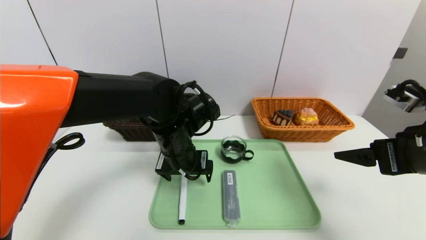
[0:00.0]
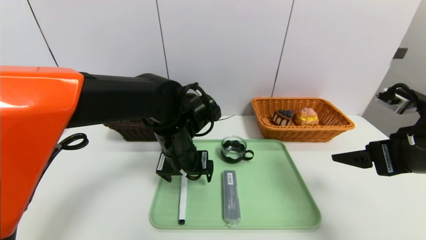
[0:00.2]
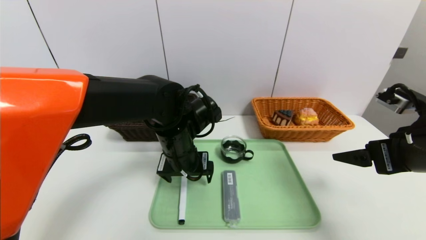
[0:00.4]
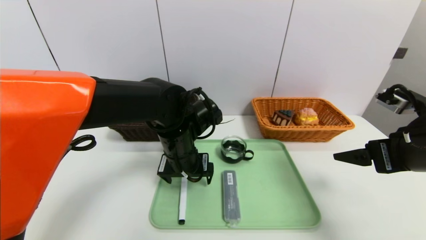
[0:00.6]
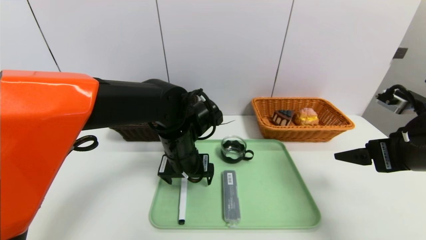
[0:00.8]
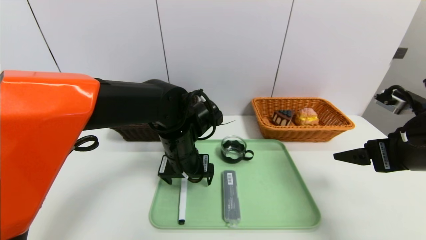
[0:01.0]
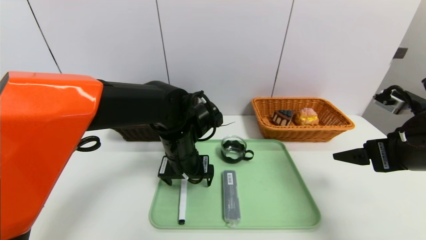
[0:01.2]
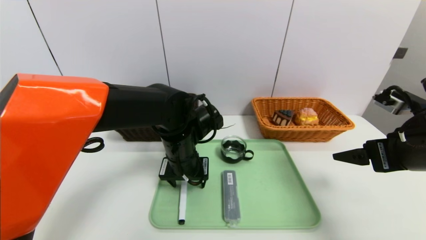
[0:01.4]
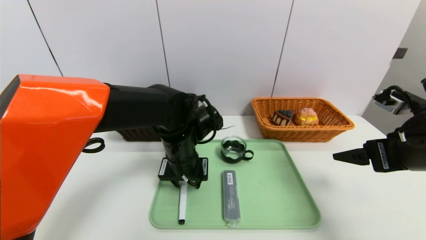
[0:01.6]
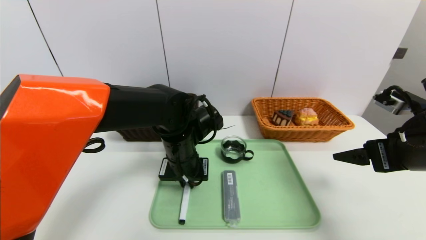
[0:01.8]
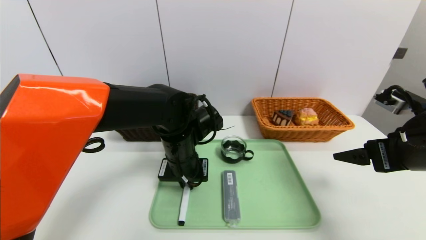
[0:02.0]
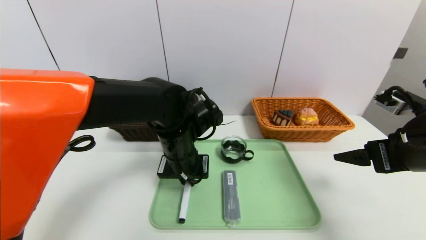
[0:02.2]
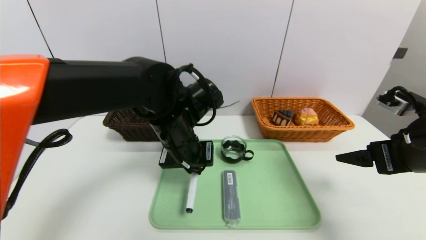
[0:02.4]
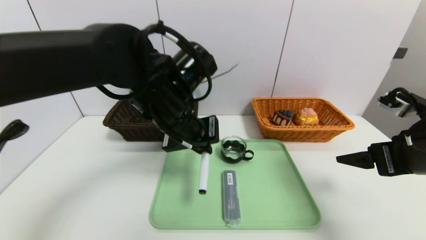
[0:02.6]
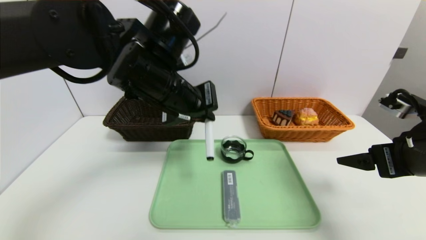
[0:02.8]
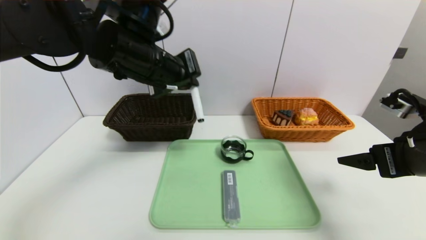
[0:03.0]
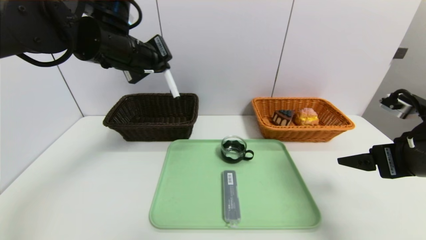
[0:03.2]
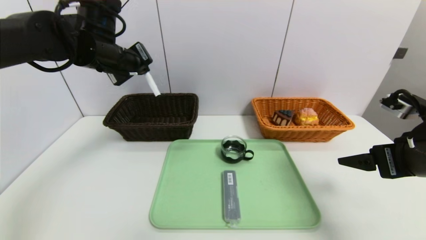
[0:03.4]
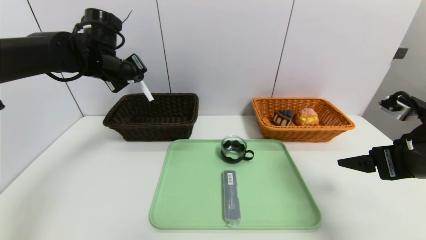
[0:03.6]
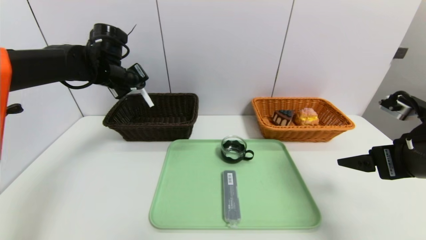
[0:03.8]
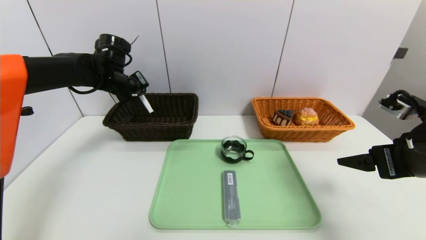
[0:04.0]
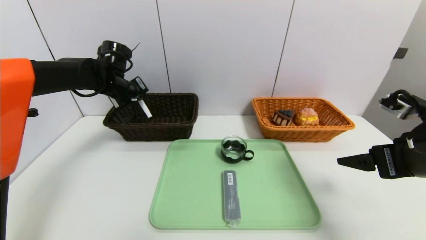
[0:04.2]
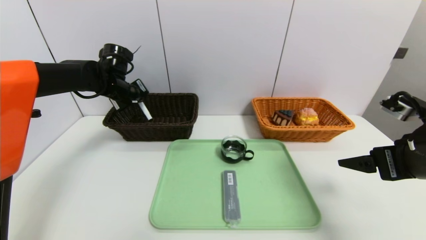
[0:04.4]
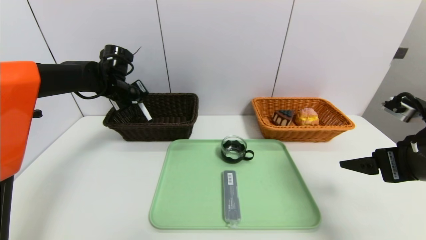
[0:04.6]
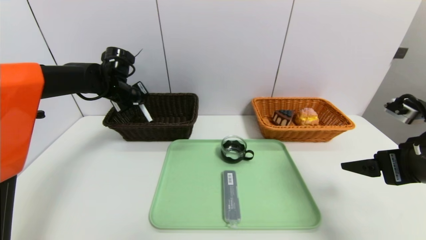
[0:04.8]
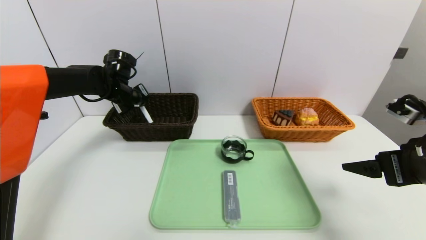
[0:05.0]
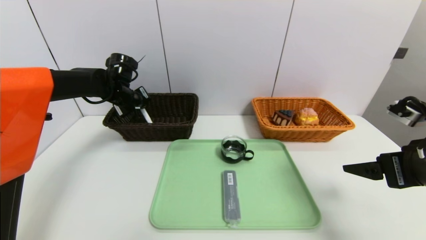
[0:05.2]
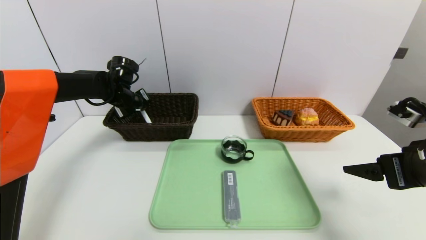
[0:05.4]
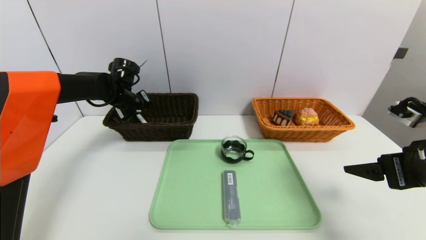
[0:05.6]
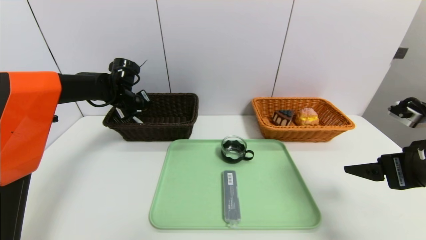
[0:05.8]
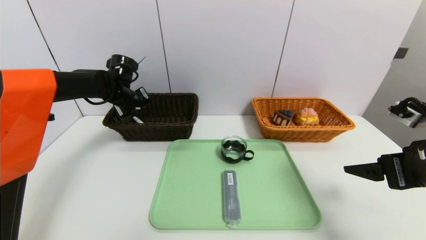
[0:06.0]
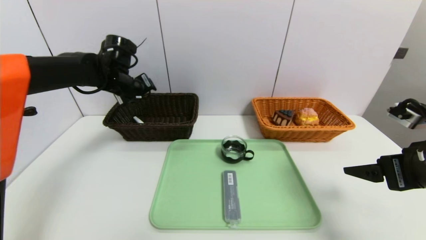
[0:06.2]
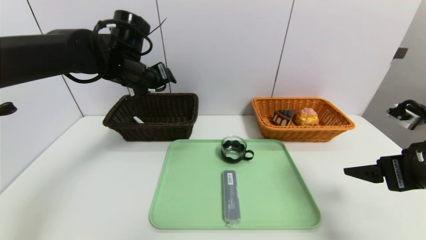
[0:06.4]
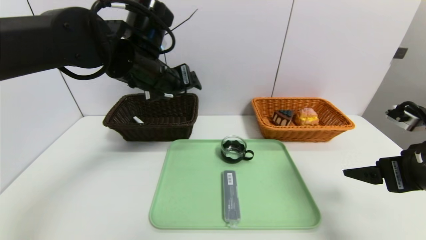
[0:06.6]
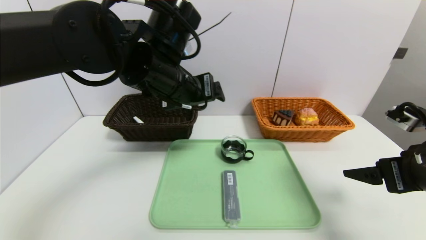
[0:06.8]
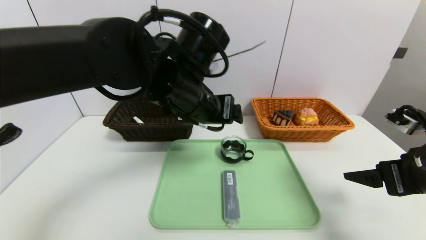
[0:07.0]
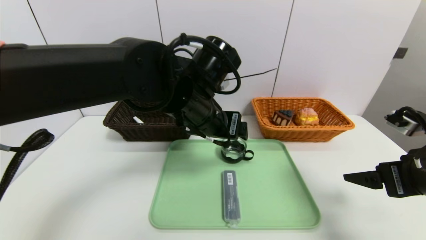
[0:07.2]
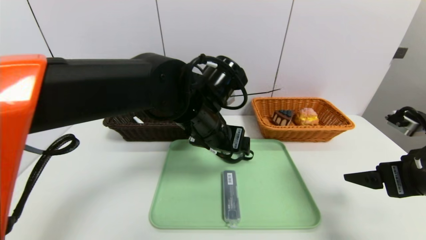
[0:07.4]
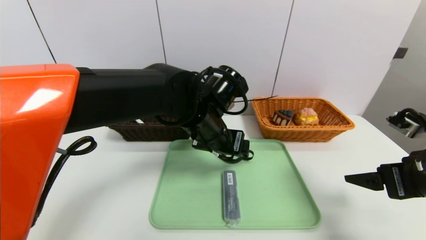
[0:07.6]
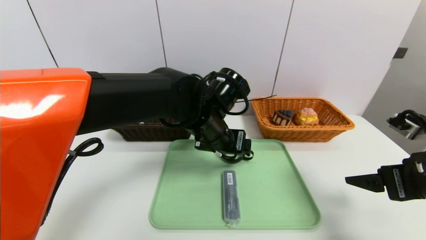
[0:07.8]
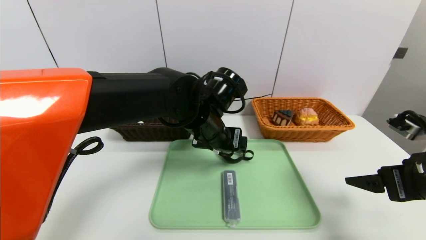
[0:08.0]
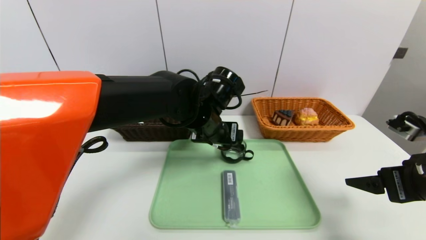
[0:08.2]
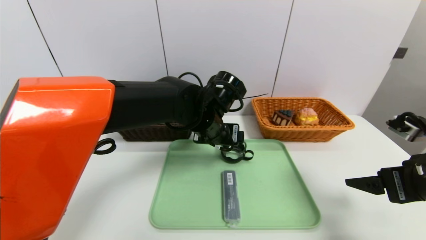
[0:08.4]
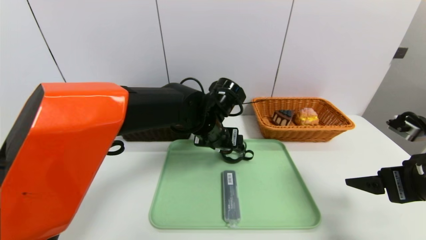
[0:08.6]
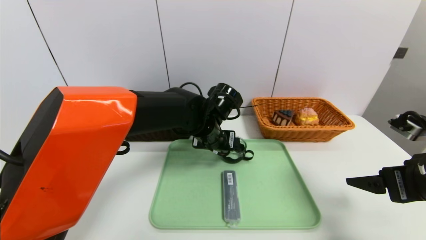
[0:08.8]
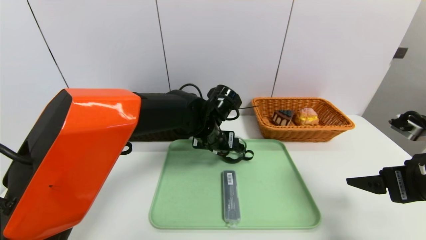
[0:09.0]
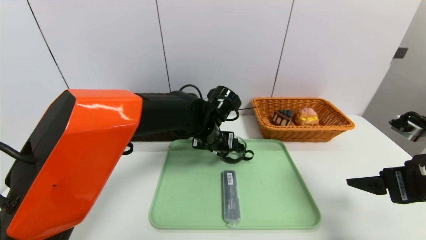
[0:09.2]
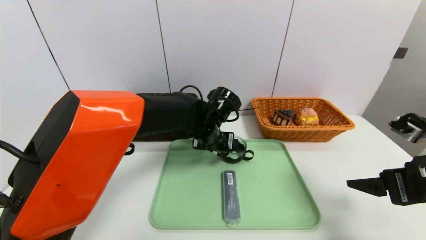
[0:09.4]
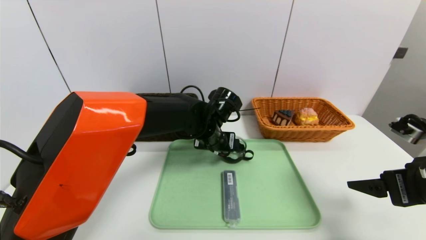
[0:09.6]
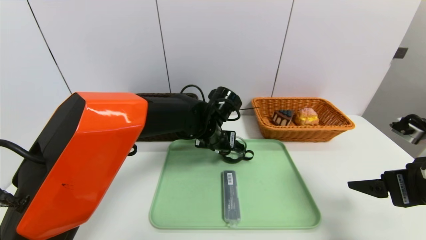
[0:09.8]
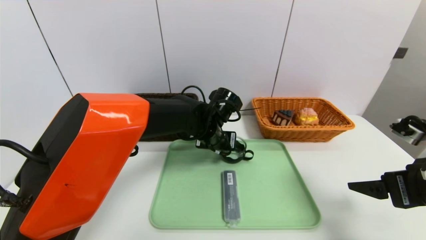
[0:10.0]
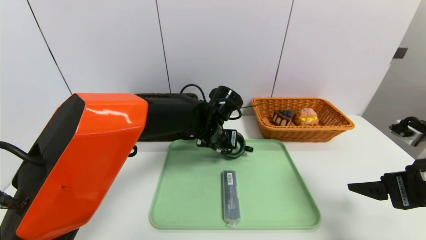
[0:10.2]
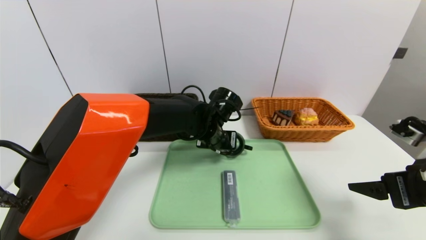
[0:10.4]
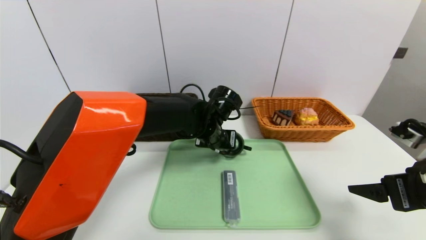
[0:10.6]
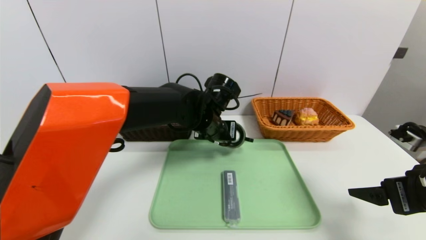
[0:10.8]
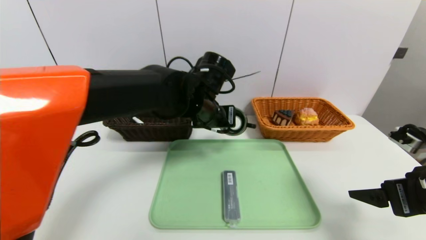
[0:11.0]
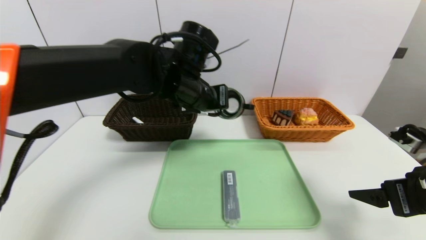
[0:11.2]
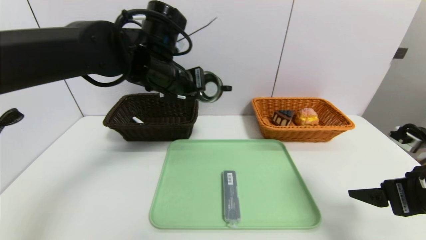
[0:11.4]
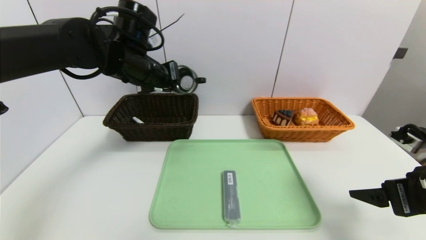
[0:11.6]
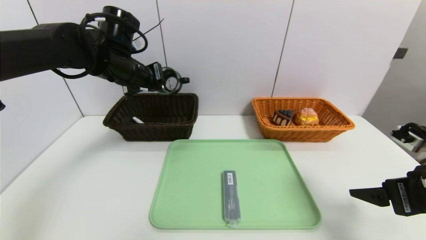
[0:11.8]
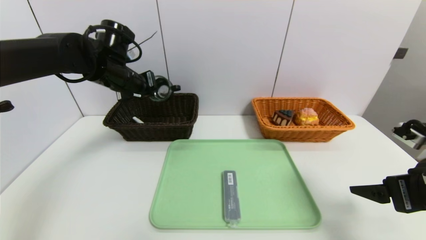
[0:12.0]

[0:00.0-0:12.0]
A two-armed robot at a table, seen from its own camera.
Task of the whole recording: place the food in the right basket with the right gripper, and place the non food items in the left basket with the left gripper.
Step, 0:00.0 to 0:06.2: Grasp the black marker and put it in the left basket.
0:00.0 to 0:01.6: The left gripper closes.
0:01.6 to 0:03.0: The left gripper is displaced upward by approximately 20 cm, and closes its fingers.
0:03.0 to 0:04.4: The left gripper travels forward, to the left and downward by approximately 20 cm.
0:04.4 to 0:06.0: The left gripper opens its fingers.
0:06.0 to 0:07.6: The left gripper travels to the right and backward by about 30 cm.
0:07.6 to 0:09.0: The left gripper heads forward and downward, covering some 10 cm.
0:09.0 to 0:10.4: The left gripper closes its fingers.
0:10.4 to 0:12.0: The left gripper shifts roughly 25 cm to the left and upward.

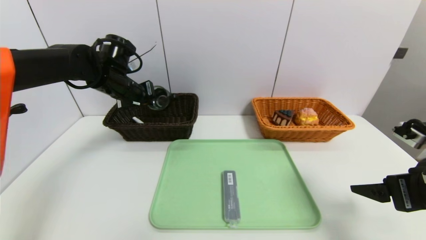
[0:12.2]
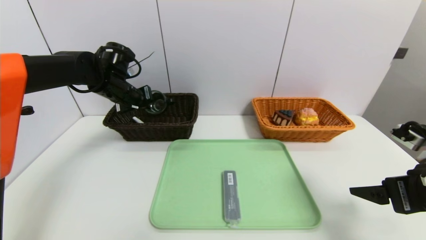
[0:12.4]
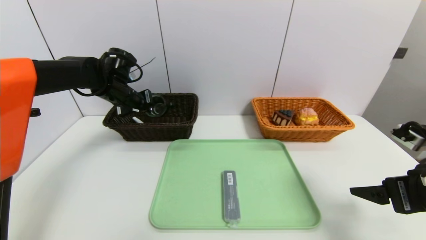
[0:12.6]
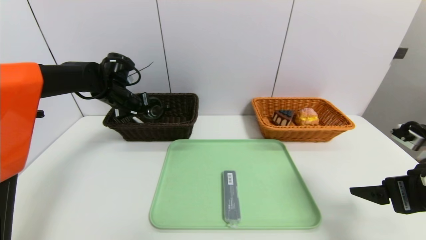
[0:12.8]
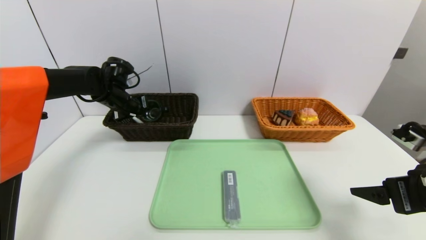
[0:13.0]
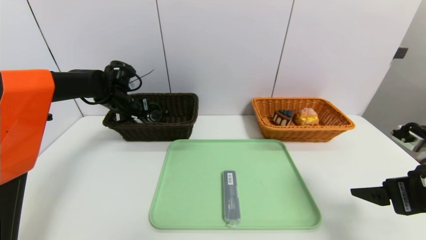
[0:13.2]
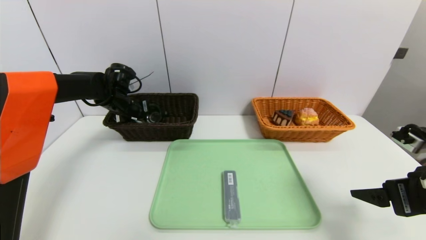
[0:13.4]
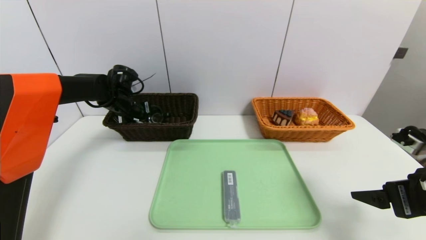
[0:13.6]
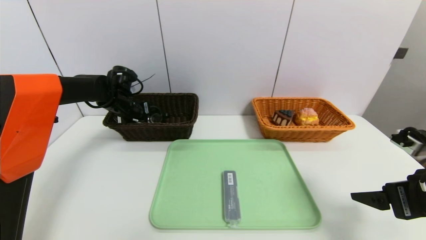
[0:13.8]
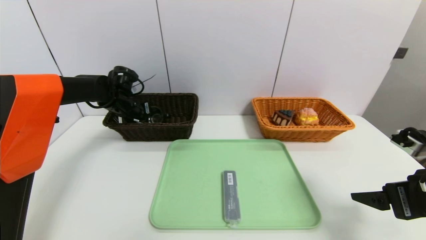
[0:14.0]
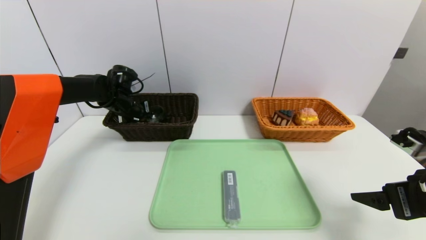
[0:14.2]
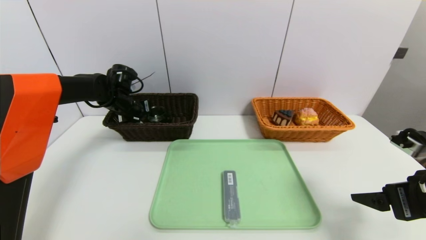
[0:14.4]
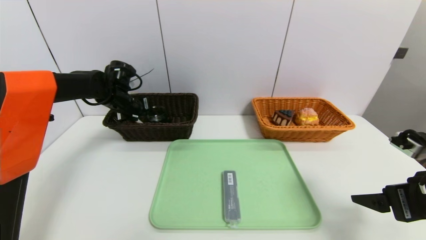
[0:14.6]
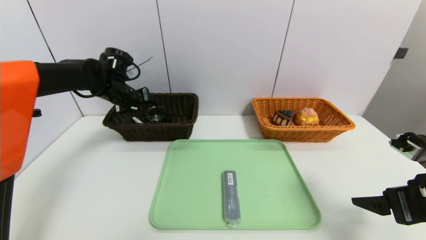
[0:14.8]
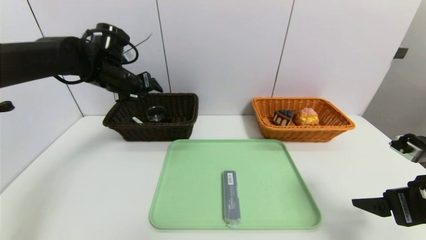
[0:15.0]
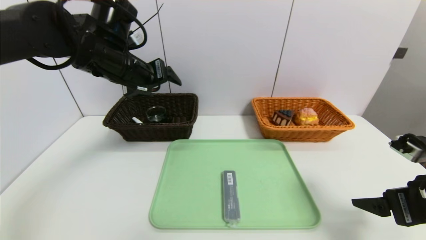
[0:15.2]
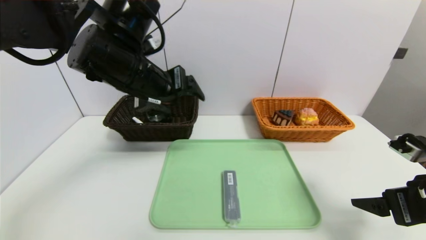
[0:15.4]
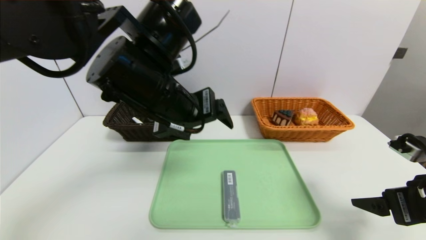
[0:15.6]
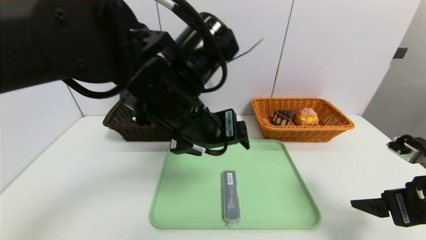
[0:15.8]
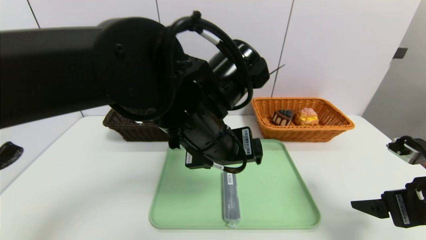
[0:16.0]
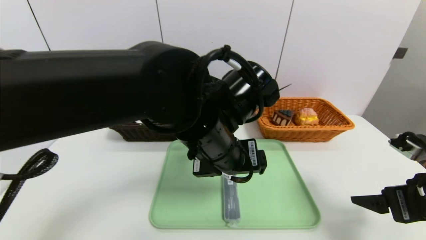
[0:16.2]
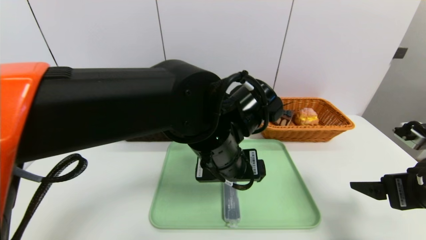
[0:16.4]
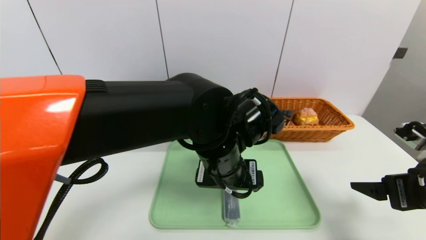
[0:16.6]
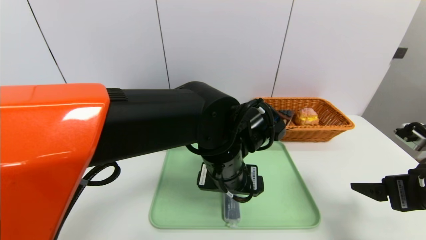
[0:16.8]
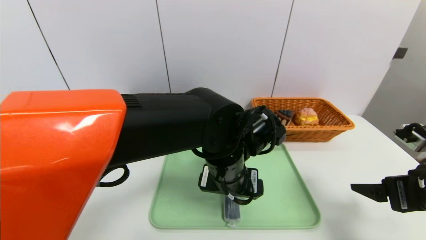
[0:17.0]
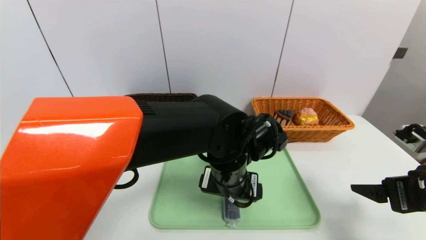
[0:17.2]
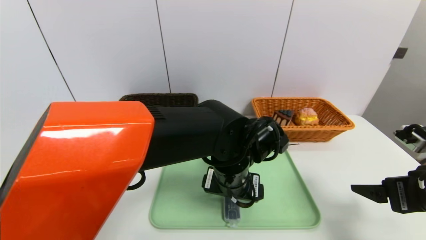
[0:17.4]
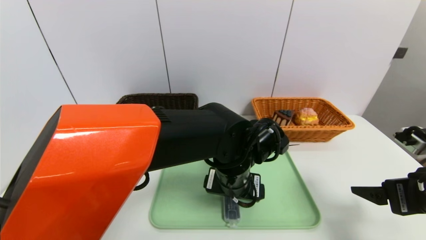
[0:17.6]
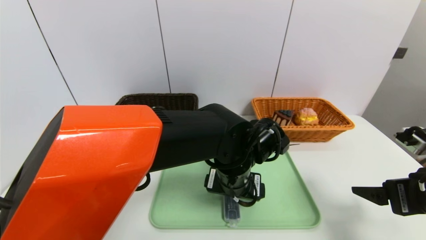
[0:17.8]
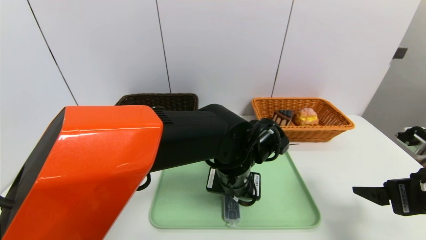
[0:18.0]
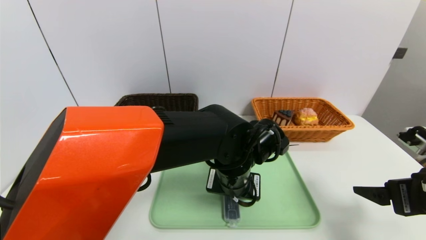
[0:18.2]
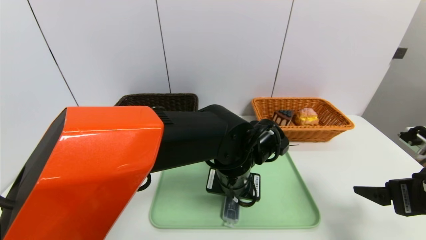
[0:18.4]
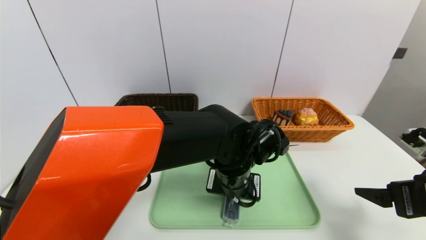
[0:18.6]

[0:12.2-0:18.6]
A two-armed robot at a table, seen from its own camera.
Task of the whole recording: place the food in the right basket with the right gripper, and place the non food items in the left basket with the left gripper.
Step, 0:12.2 to 0:14.8: Grasp the black glass cup and put it in the left basket.
0:12.2 to 0:13.8: The left gripper goes some 5 cm downward.
0:13.8 to 0:15.4: The left gripper goes some 30 cm backward, upward and to the right, and opens its fingers.
0:15.4 to 0:17.0: The left gripper moves to the right and downward, roughly 20 cm.
0:17.0 to 0:18.6: The left gripper closes its fingers.
